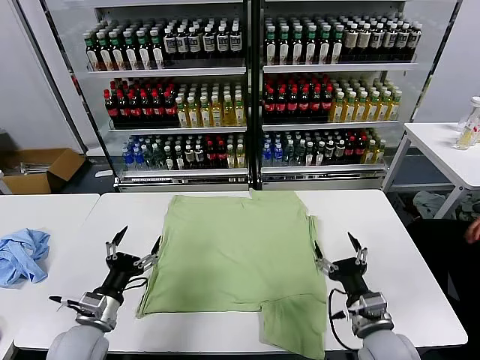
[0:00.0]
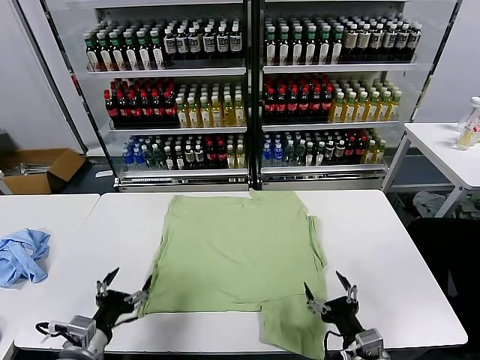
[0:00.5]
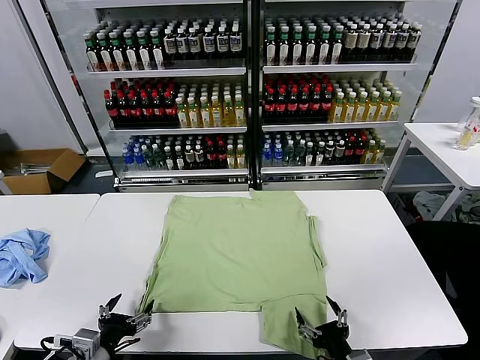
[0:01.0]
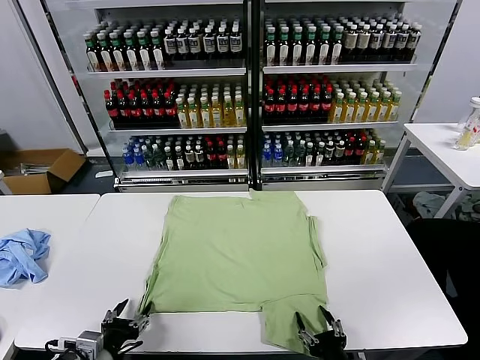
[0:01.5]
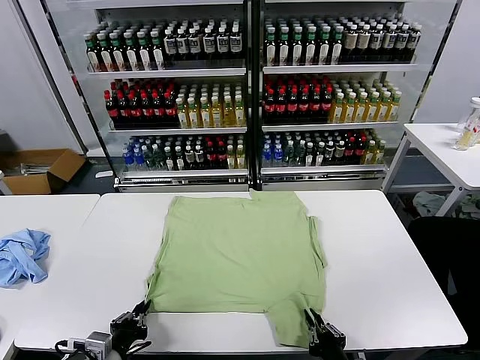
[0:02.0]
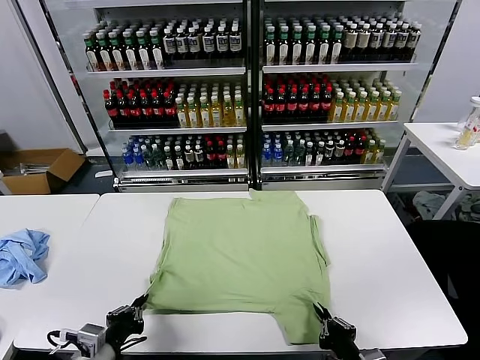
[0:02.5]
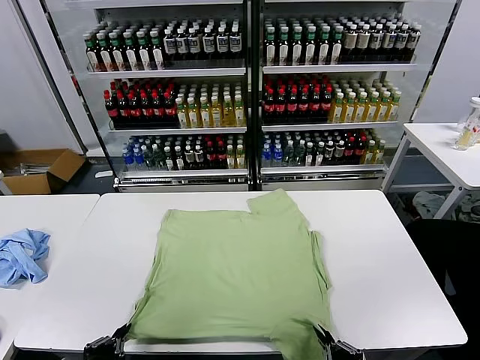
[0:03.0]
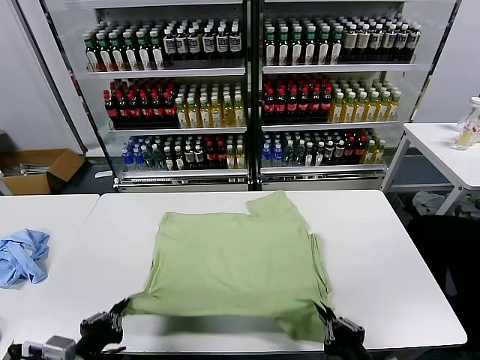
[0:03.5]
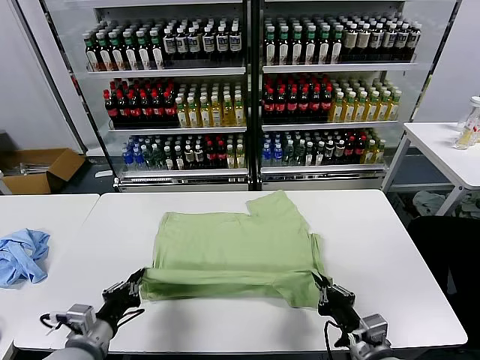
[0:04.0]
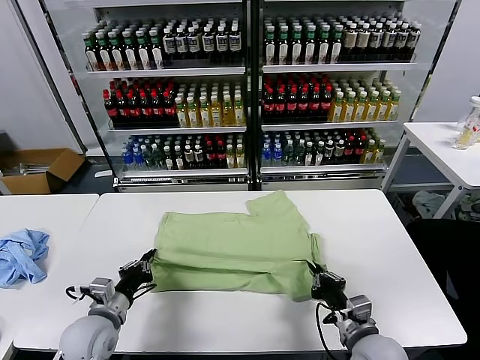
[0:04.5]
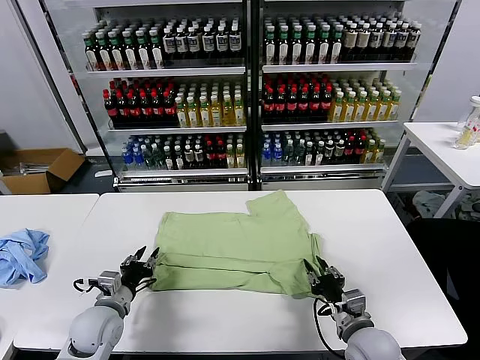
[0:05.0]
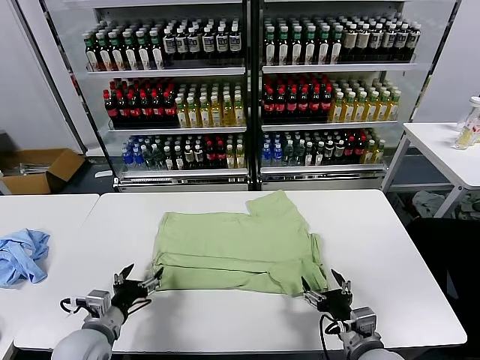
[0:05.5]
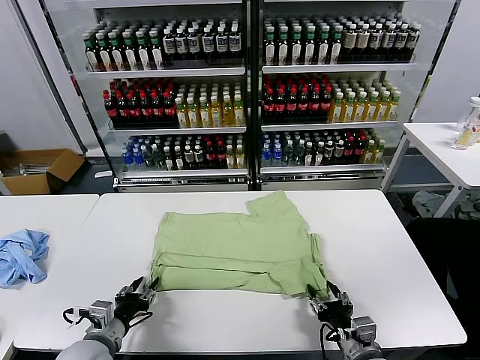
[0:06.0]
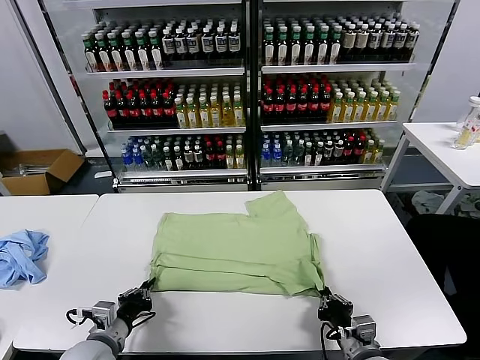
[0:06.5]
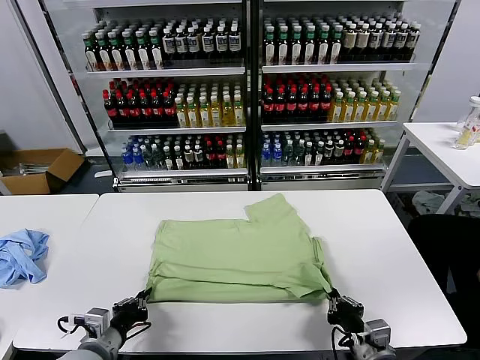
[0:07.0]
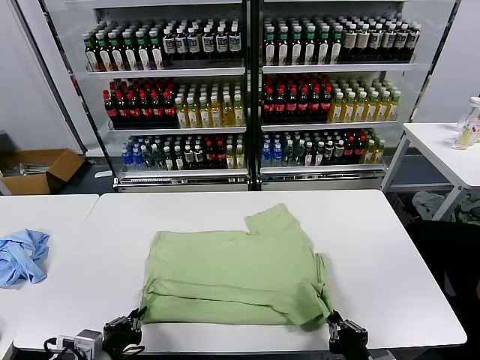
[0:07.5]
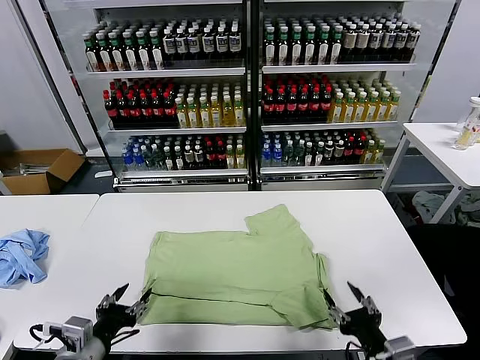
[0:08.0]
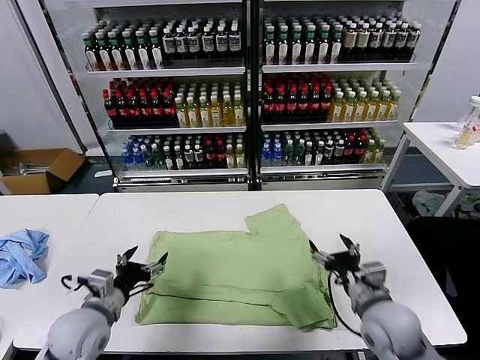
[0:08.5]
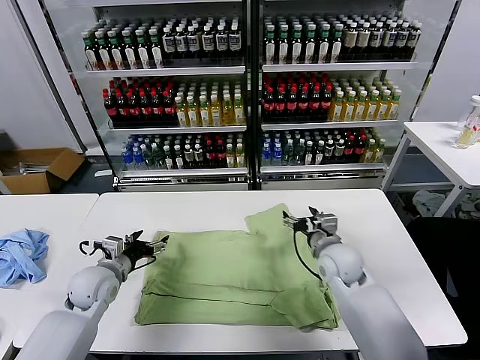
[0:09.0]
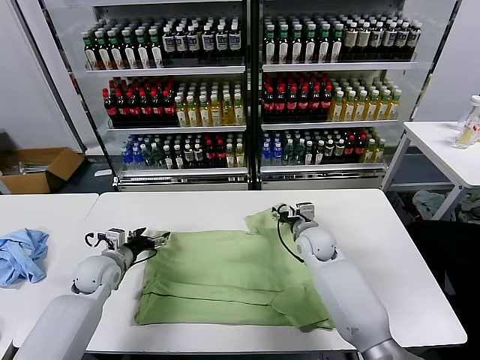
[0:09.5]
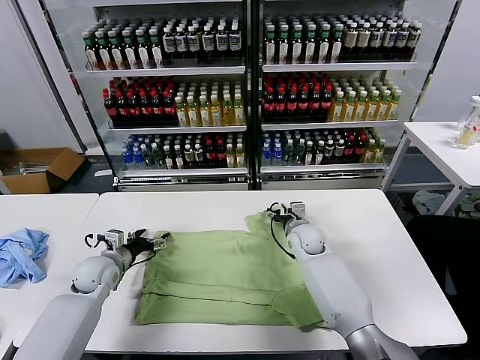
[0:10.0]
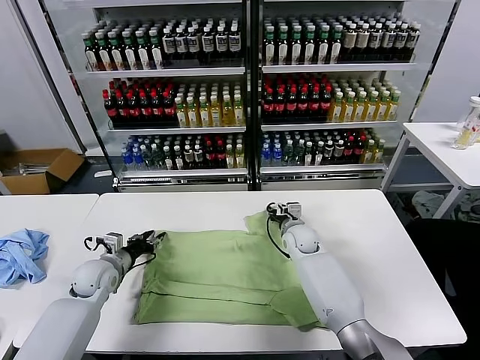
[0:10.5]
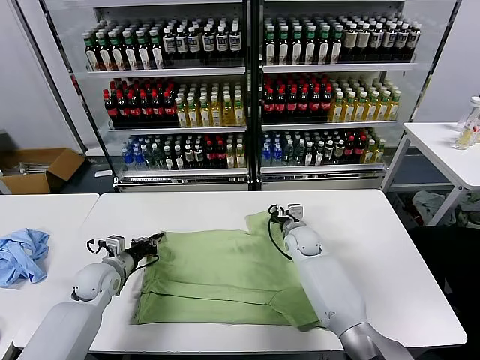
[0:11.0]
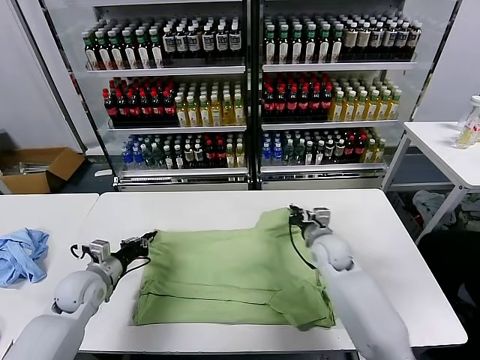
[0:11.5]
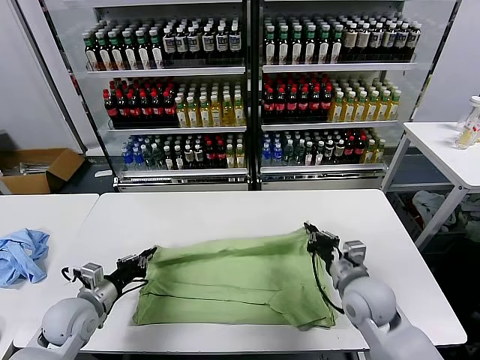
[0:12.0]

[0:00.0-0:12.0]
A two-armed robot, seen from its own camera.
Task of the whole recording: fold and organize the clothes.
Step, 0:00.0 to 0:02.0: use both grippers simultaneously to clamp the lower edge of the clothing fabric.
Step, 0:02.5 to 0:05.0: use both grippers to drag the lower edge of the fabric forward and fold it over the upper edge.
Step, 0:05.5 to 0:07.5: Drag the clothes downward with both gripper.
Step, 0:08.0 to 0:10.5: use both grippers simultaneously to clamp the upper edge of the clothing fabric.
0:02.0 to 0:04.0: The right gripper heads upward and forward, covering about 10 cm.
0:04.0 to 0:06.0: The right gripper opens up; the left gripper travels forward and back again, some 10 cm each way, and opens up.
0:06.0 to 0:08.0: The two grippers go about 10 cm upward and backward. The right gripper closes, then reopens, while the left gripper closes, then reopens.
0:08.0 to 0:10.0: The left gripper travels forward by some 25 cm; the right gripper shifts about 40 cm forward.
0:10.0 to 0:12.0: The right gripper goes about 20 cm backward and to the right, and closes its fingers. Meanwhile the left gripper moves backward, about 10 cm, and closes.

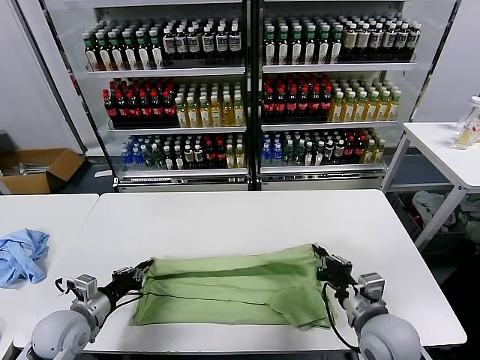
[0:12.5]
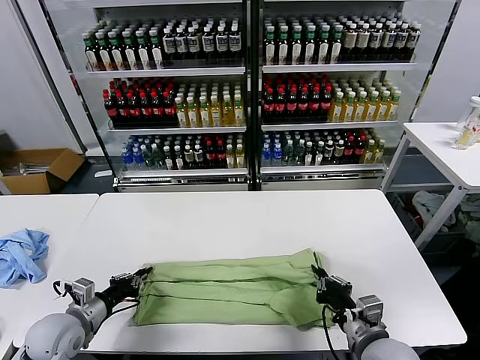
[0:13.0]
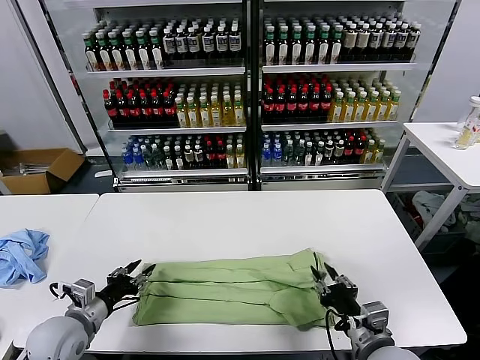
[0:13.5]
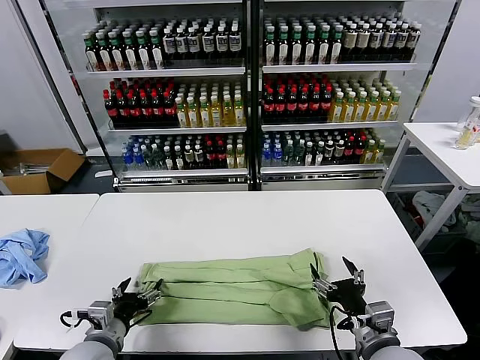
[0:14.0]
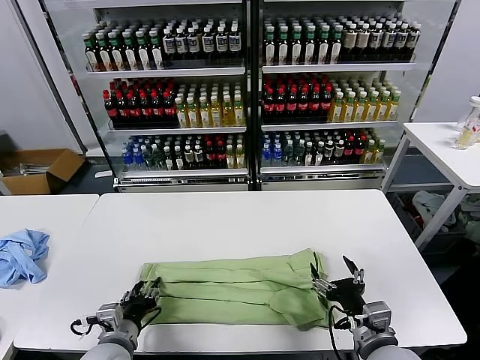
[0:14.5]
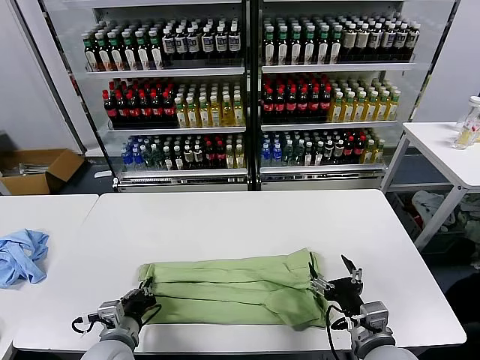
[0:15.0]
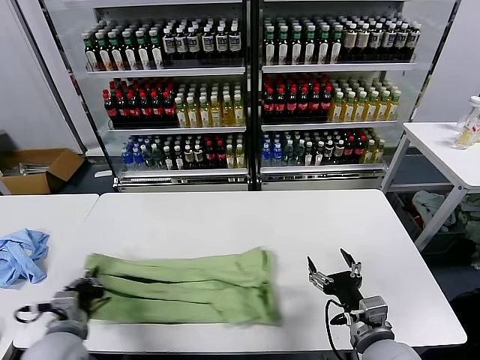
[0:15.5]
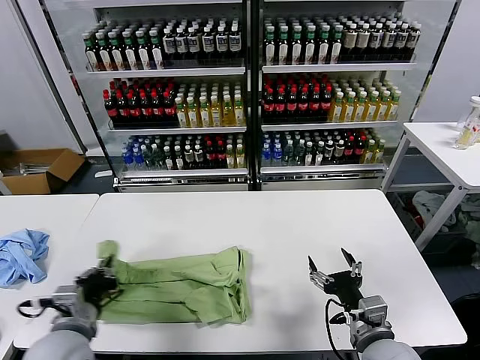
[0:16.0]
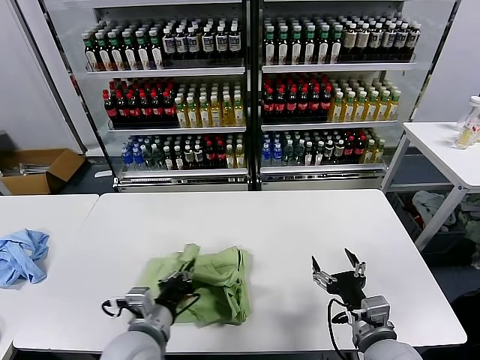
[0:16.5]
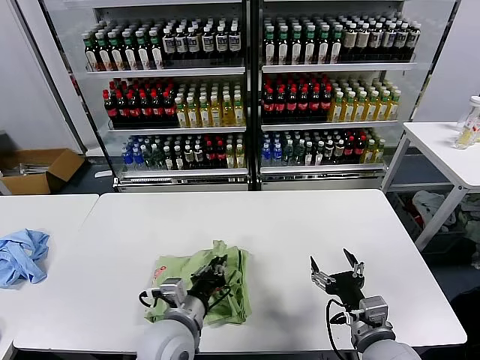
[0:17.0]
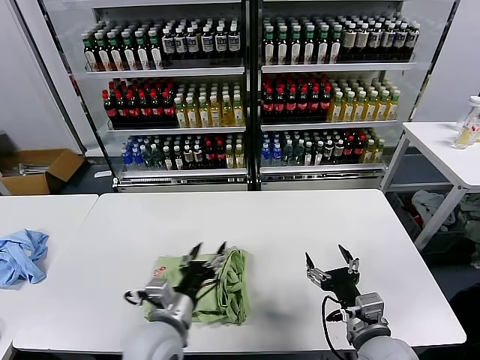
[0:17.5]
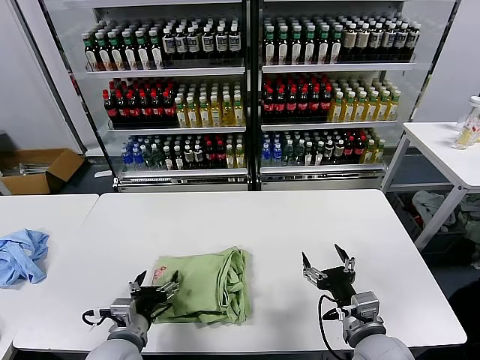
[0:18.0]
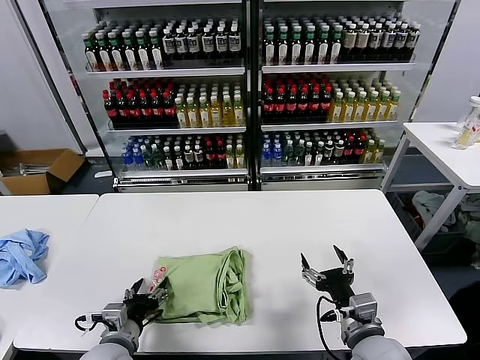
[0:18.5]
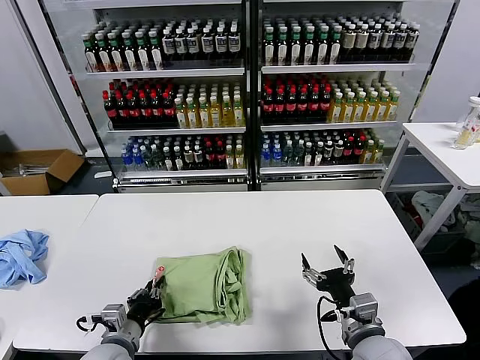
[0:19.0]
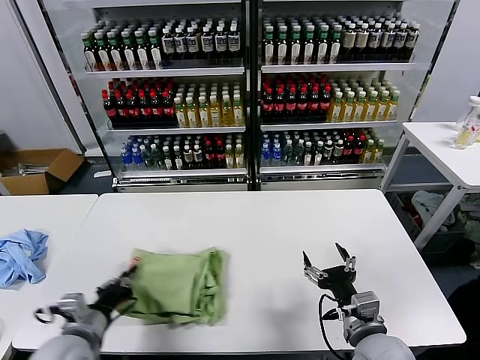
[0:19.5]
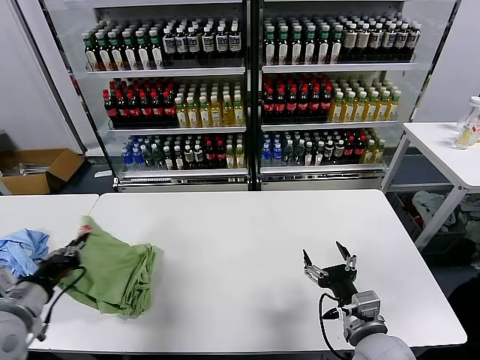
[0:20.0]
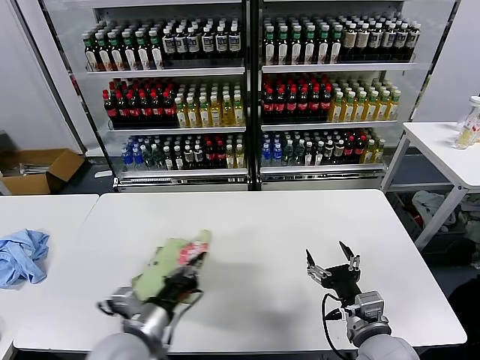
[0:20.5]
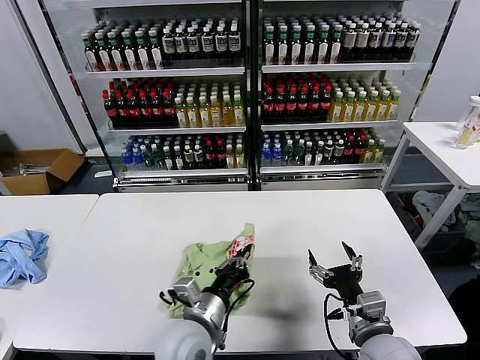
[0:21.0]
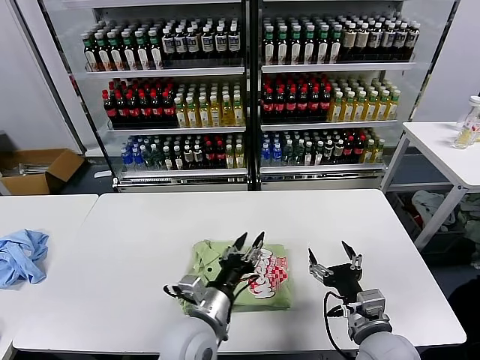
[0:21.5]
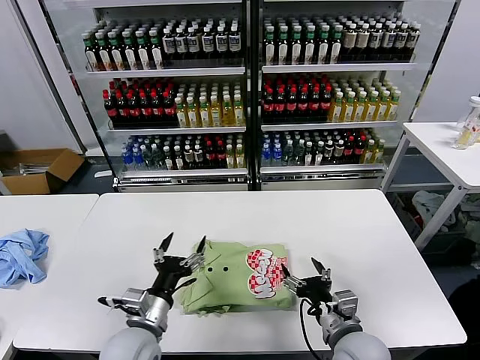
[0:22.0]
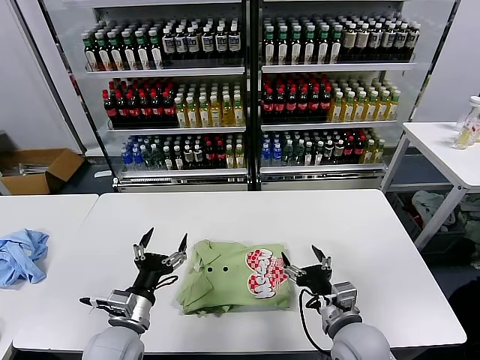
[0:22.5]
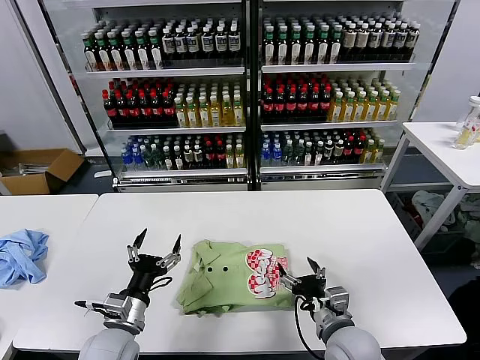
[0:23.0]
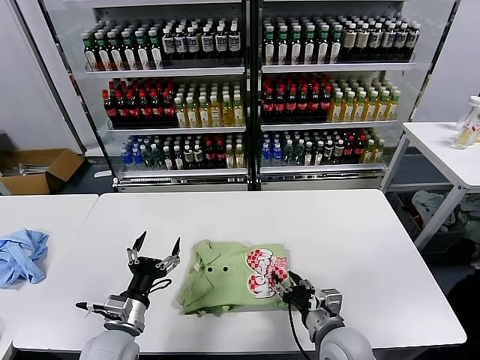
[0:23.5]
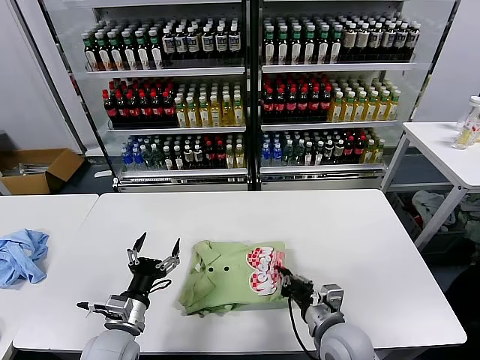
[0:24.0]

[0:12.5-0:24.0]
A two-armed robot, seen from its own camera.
Task of the whole recording: fold and organize the clothes.
Step, 0:14.0 to 0:14.5: use the left gripper to clamp the left edge of the fabric.
Step, 0:15.0 to 0:17.0: use the left gripper to drag the left edge of the fabric to the left and folds it over the right edge.
Step, 0:17.5 to 0:21.0: Flip the folded clothes over with left gripper.
0:12.5 to 0:14.5: The right gripper shifts about 5 cm backward, and opens its fingers. The left gripper moves to the right and backward, approximately 10 cm, and opens up.
0:14.5 to 0:16.5: The left gripper shifts about 10 cm upward and to the right, and closes.
0:16.5 to 0:18.5: The left gripper heads downward and to the left, covering roughly 10 cm, and opens.
0:18.5 to 0:20.0: The left gripper is displaced to the left and upward by about 20 cm, and closes its fingers.
0:20.0 to 0:22.0: The left gripper moves to the right, about 20 cm, and opens its fingers.
0:22.0 to 0:24.0: The left gripper moves to the left, about 5 cm, while the right gripper closes.

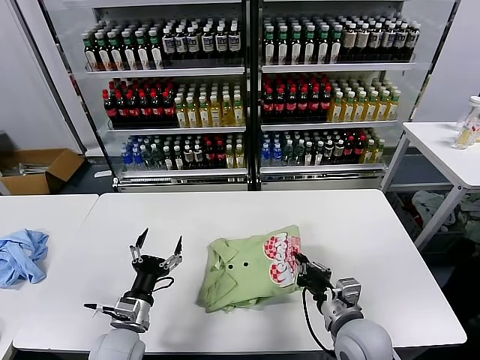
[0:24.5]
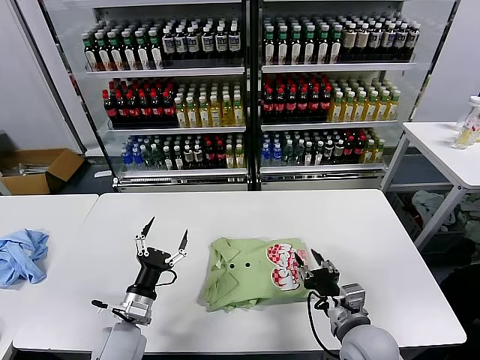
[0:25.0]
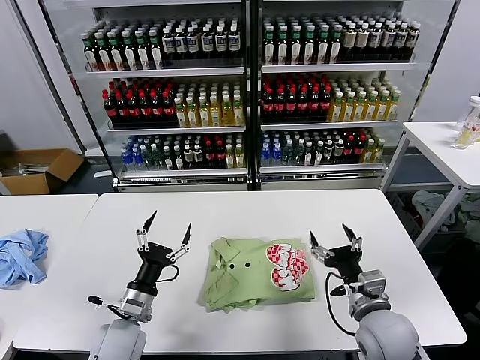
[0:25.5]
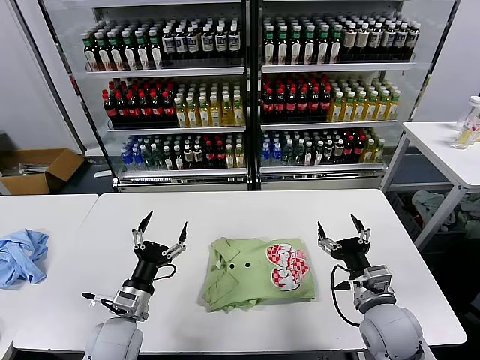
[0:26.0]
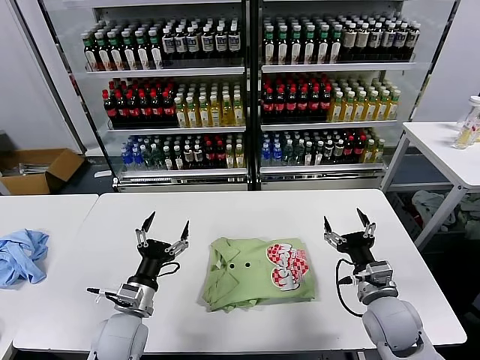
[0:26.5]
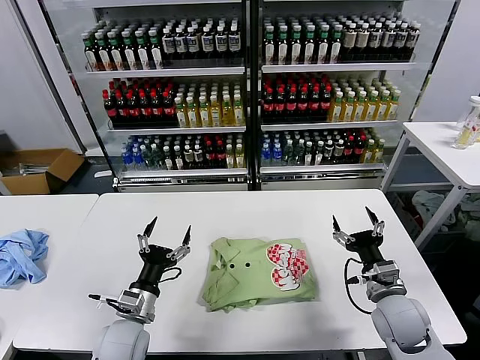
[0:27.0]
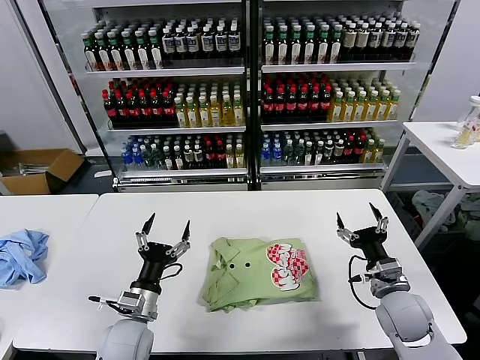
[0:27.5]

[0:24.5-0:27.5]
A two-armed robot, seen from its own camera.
Task of the whole recording: fold and organize the clothes.
0:24.5 to 0:26.0: The right gripper changes place by approximately 5 cm, and opens its fingers.
0:26.0 to 0:27.5: The right gripper travels to the right by about 5 cm.
